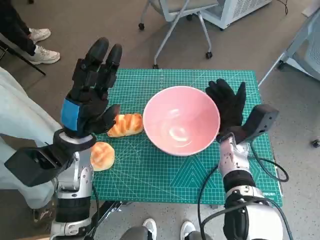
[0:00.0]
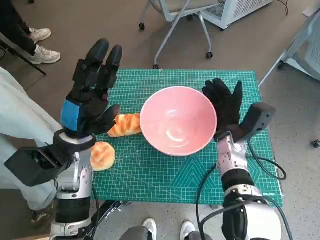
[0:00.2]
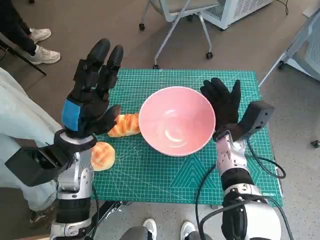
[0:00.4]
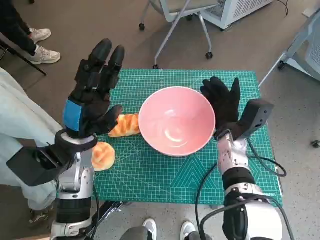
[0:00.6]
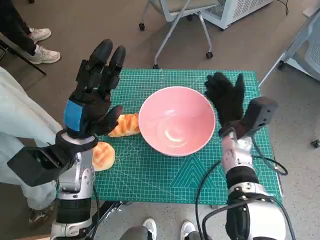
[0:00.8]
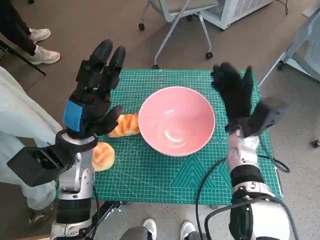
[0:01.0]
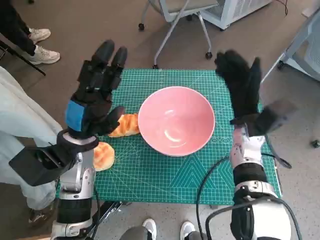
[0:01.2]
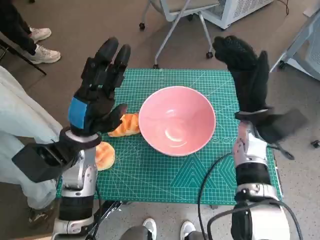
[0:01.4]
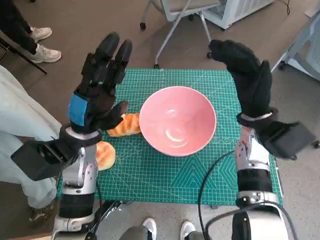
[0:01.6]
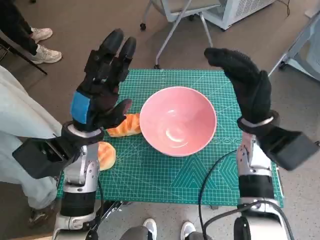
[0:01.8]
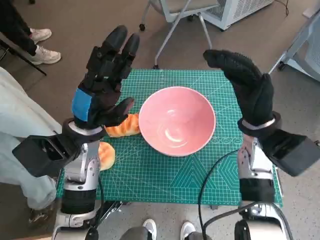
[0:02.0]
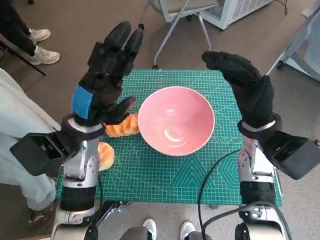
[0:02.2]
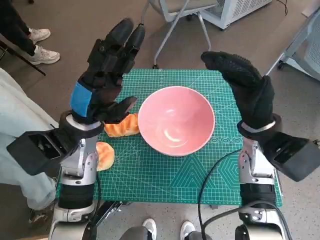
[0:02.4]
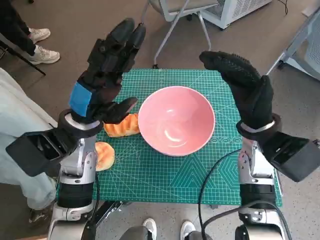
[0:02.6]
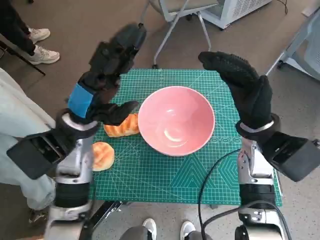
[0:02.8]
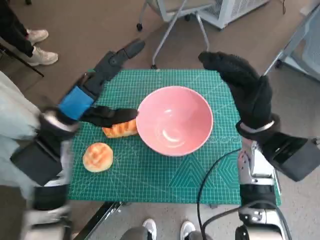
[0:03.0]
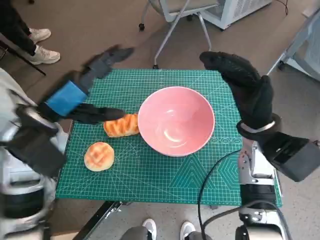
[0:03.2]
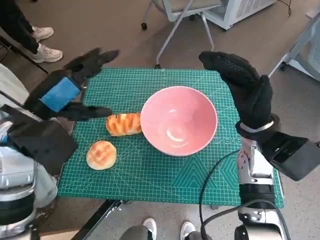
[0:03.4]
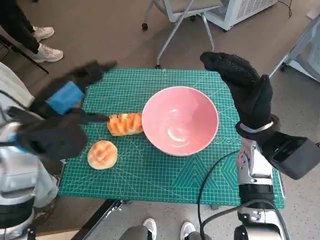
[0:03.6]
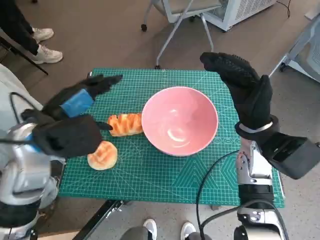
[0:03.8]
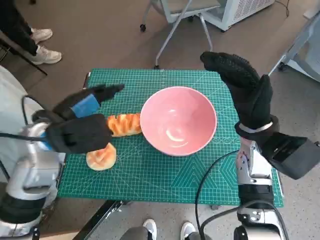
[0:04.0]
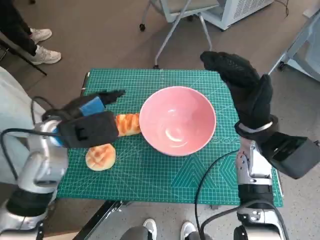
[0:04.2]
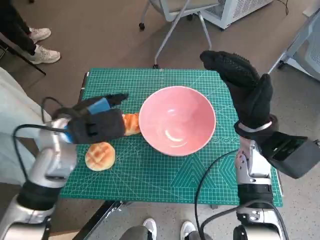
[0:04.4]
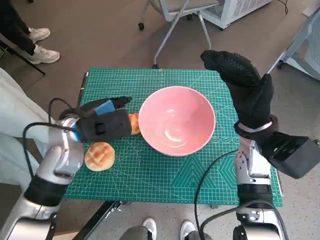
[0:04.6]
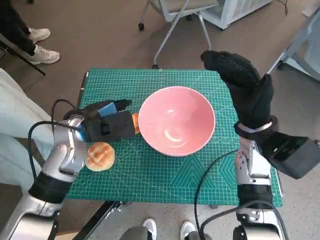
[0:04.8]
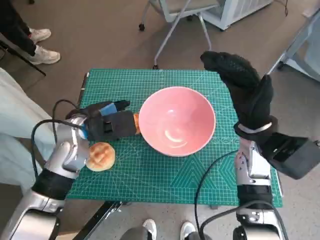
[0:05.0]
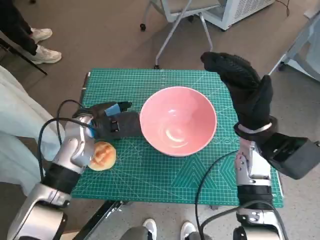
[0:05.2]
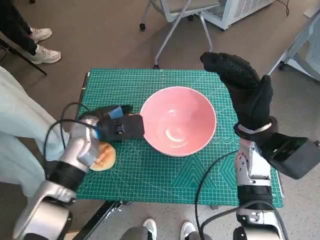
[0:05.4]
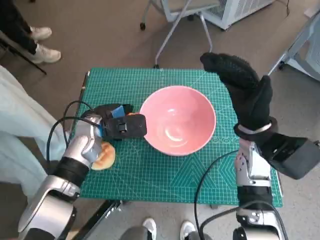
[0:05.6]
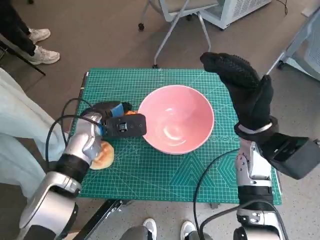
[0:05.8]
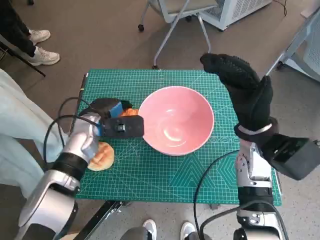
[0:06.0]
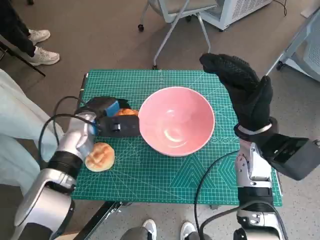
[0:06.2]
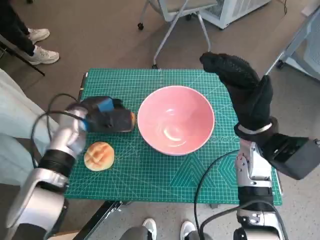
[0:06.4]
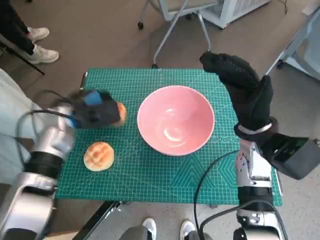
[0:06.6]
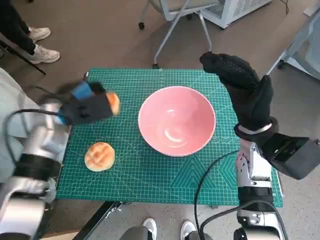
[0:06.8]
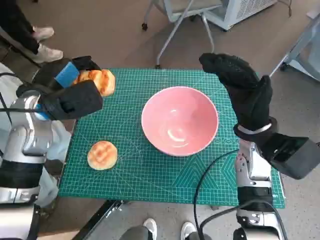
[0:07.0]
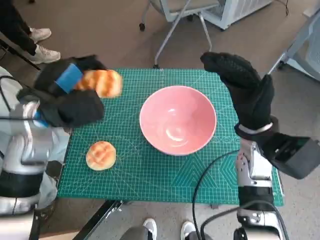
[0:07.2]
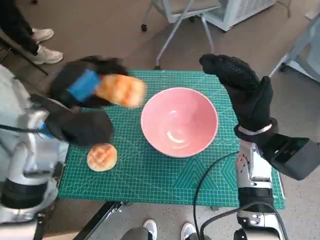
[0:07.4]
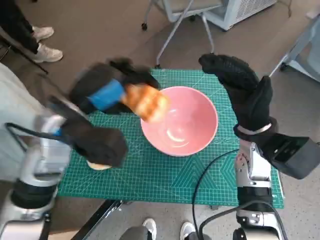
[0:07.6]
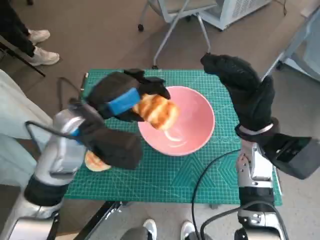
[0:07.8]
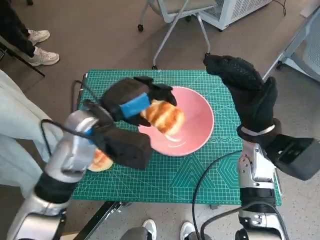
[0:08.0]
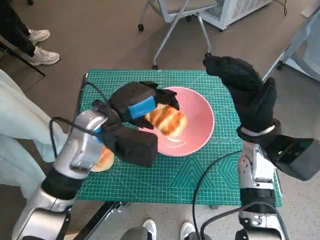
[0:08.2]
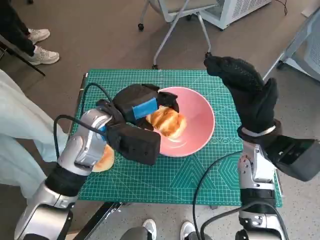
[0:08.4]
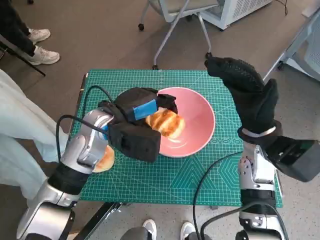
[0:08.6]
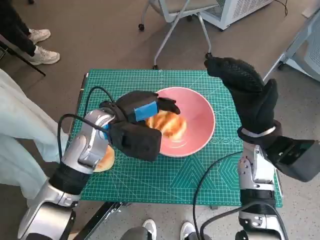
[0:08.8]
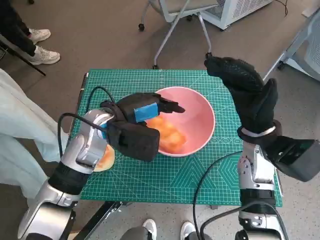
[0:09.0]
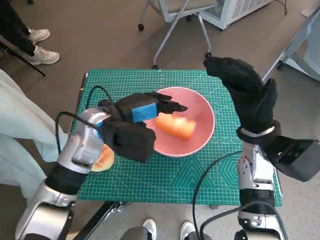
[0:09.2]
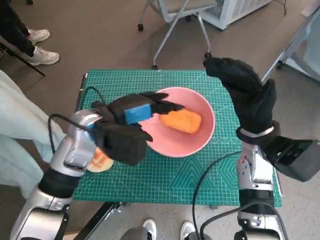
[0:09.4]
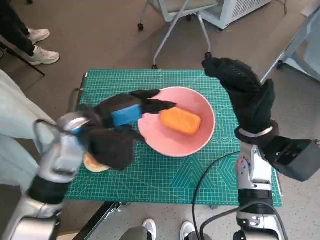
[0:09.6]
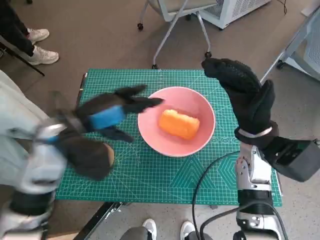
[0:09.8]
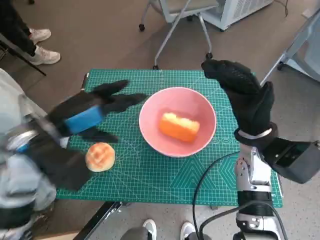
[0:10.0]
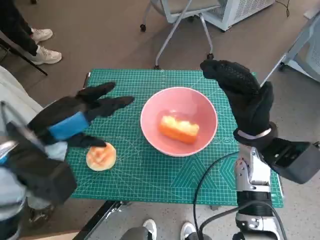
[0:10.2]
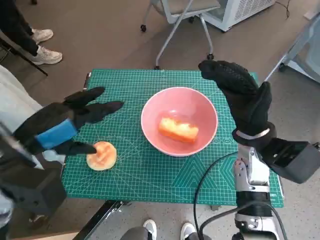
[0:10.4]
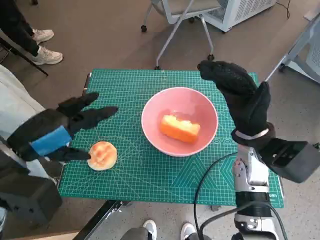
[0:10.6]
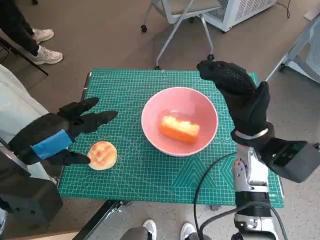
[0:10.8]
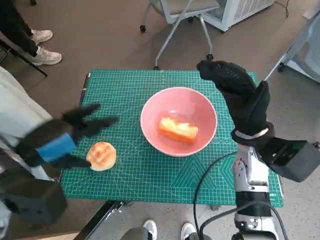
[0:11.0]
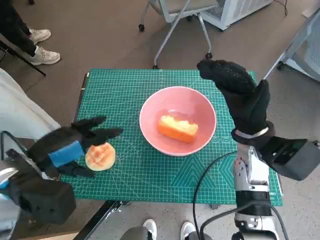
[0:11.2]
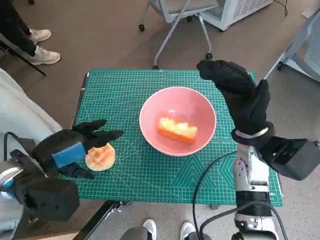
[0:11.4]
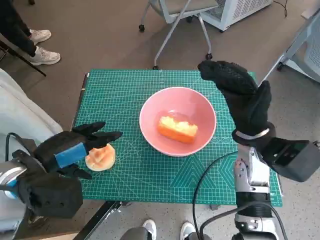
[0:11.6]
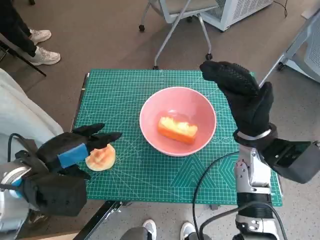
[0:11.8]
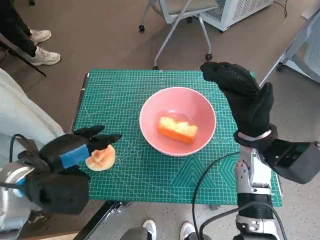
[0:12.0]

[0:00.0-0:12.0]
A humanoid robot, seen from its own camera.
Task of the whole recording: Push the bowl into the center of the table and put the bread into the bowl.
Step, 0:01.2 to 0:05.4: Grasp the long bread with left hand.
Step, 0:05.8 to 0:09.6: Place the long bread in pink bowl with left hand.
0:00.0 to 0:01.6: The right hand moves upward, about 10 cm.
0:04.4 to 0:06.0: The left hand is displaced downward and forward by about 10 cm.
0:06.0 to 0:07.6: The left hand is displaced upward and backward by about 15 cm.
0:07.6 to 0:09.0: The left hand travels downward by roughly 5 cm.
0:09.0 to 0:10.4: The left hand travels to the left, backward and upward by about 15 cm.
0:10.4 to 0:12.0: The left hand travels downward by approximately 5 cm.

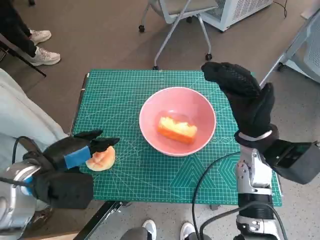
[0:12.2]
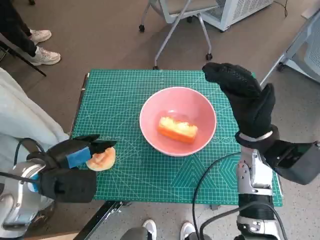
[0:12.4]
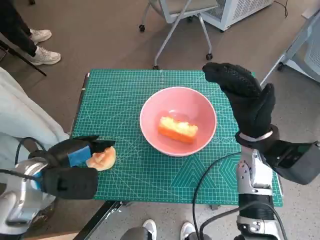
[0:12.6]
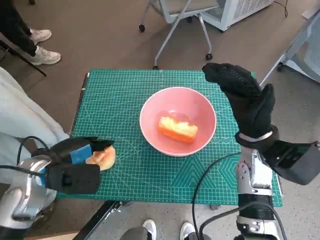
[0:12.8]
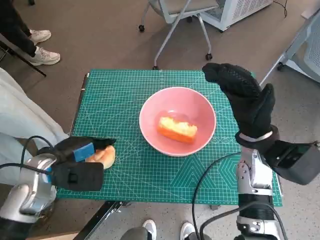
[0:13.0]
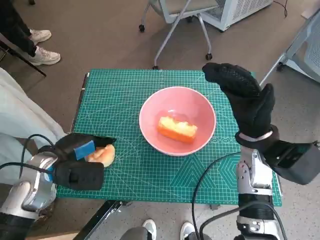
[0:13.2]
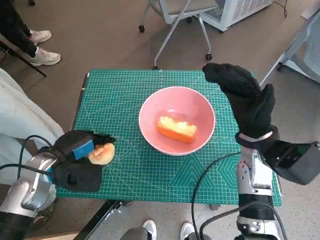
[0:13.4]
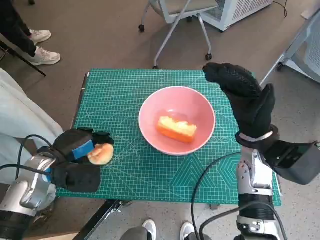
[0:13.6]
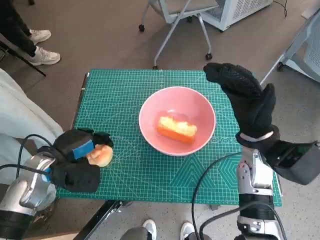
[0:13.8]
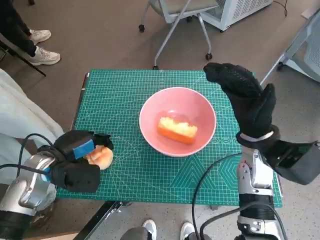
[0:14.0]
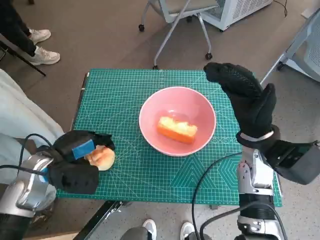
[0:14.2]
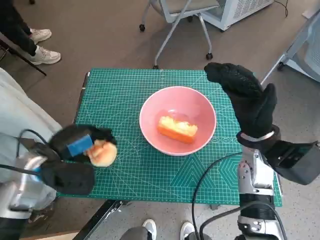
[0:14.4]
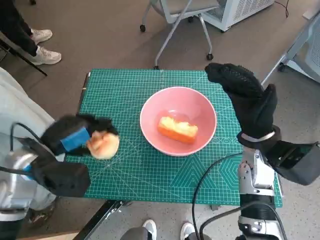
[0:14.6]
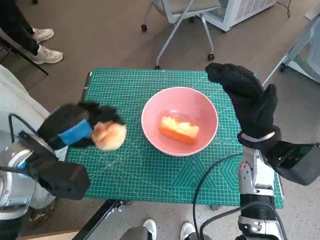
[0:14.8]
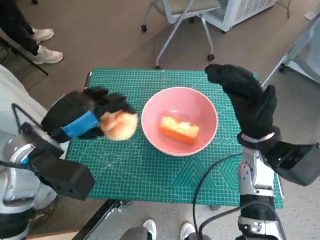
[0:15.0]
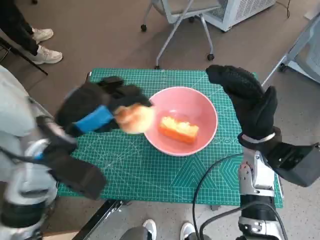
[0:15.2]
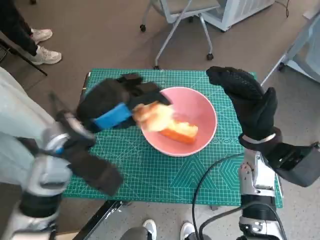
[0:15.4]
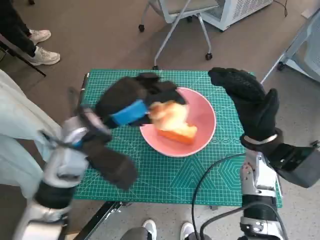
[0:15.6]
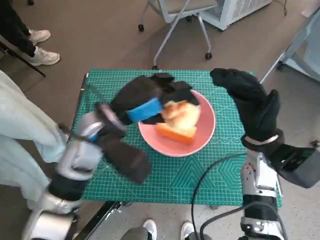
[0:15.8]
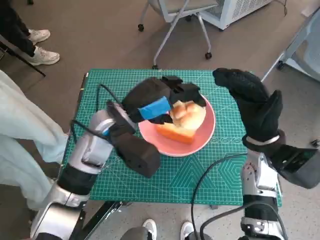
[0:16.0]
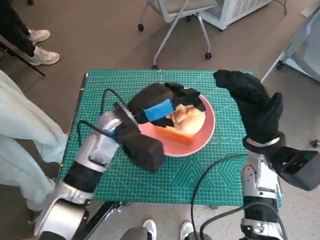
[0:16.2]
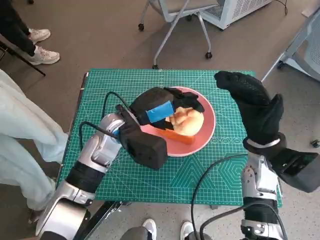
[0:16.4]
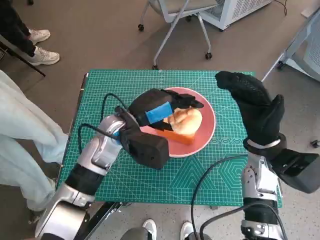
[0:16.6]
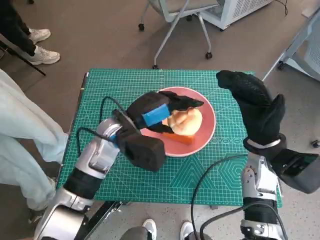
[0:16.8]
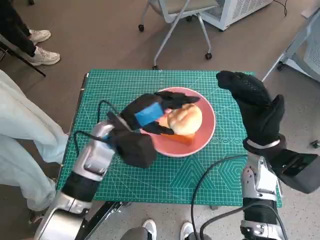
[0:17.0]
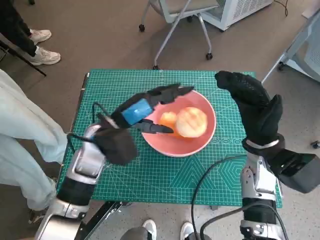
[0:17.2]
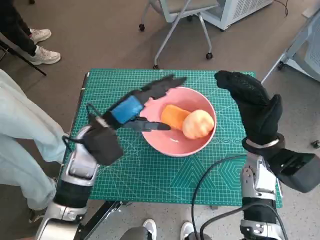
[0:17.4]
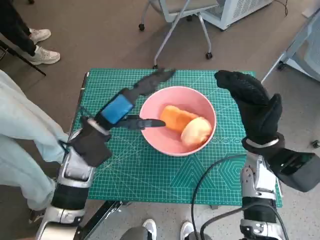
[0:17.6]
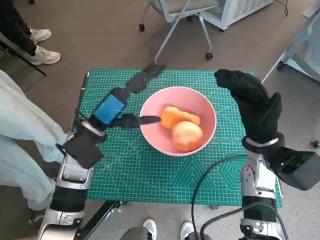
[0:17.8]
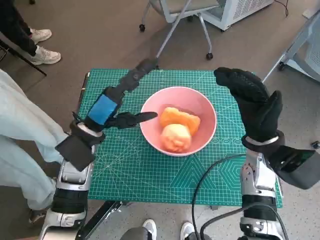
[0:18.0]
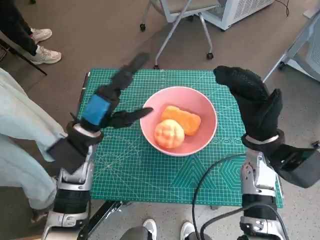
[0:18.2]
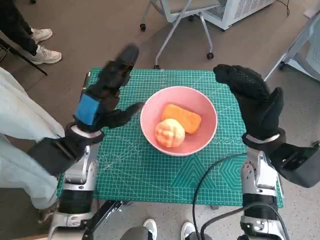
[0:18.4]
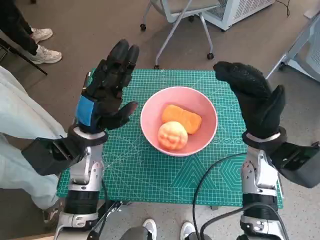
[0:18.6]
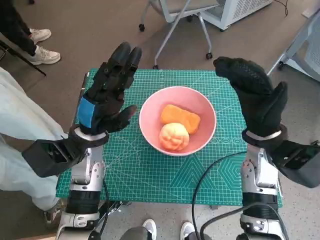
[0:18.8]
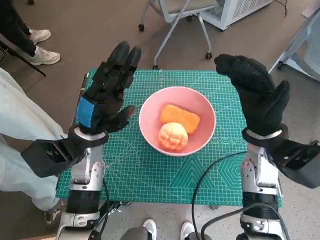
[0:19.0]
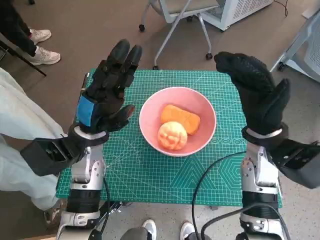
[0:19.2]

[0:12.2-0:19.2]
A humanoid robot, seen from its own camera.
Task of the whole recording: Push the bowl into the center of the table and put the bread into the bowl.
Step, 0:13.6 to 0:17.4: Place the round bread in pink bowl with left hand.
0:12.2 to 0:13.6: The left hand heads downward, covering about 5 cm.
0:13.6 to 0:15.0: The left hand goes some 10 cm upward.
0:15.0 to 0:16.4: The left hand goes some 15 cm to the right, forward and downward.
0:16.4 to 0:17.8: The left hand travels to the left by some 5 cm.
